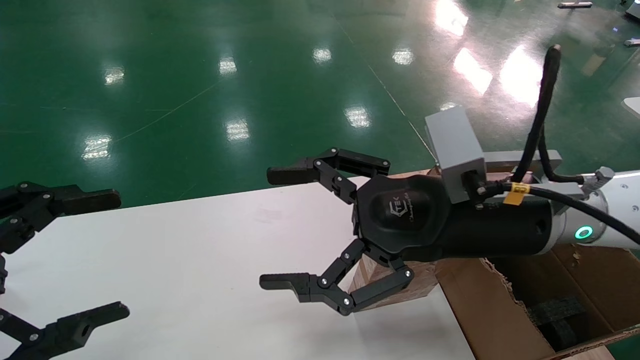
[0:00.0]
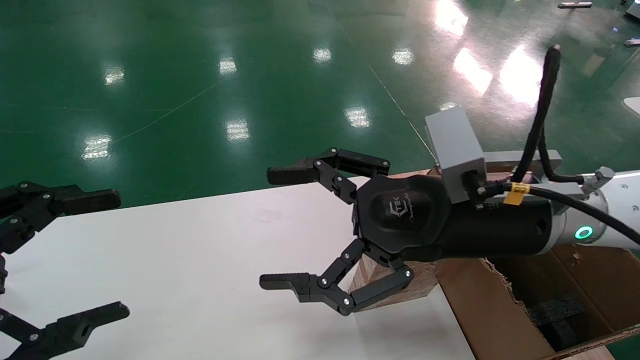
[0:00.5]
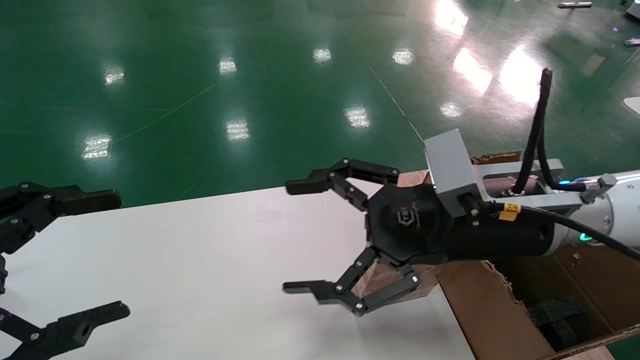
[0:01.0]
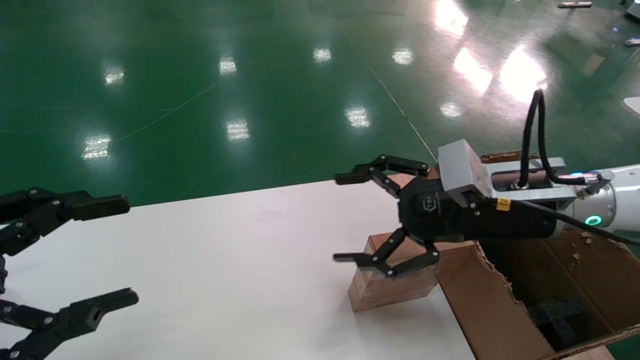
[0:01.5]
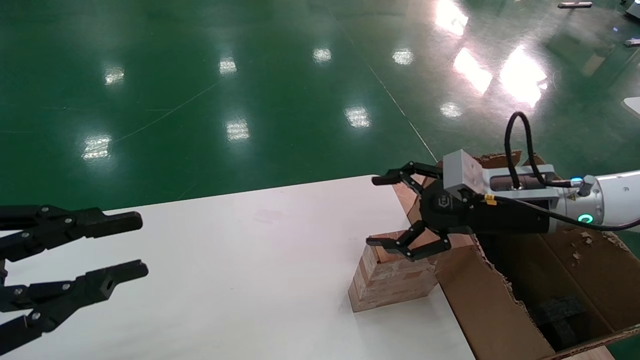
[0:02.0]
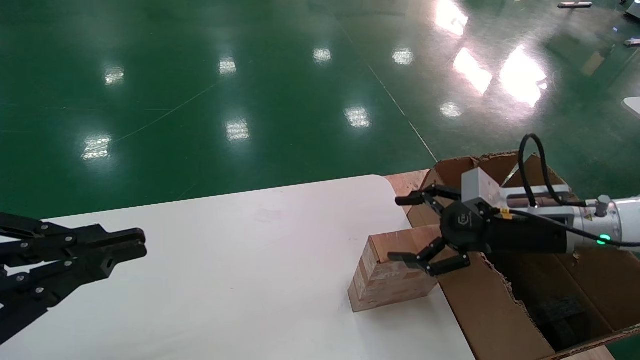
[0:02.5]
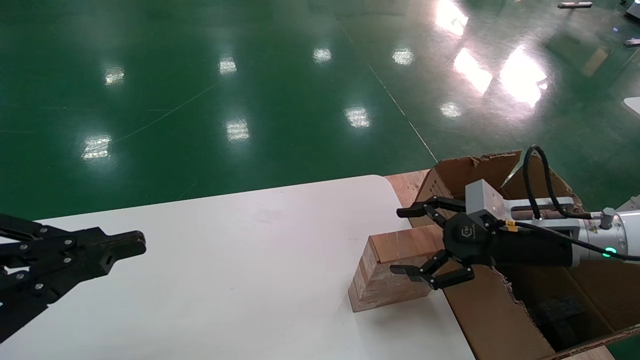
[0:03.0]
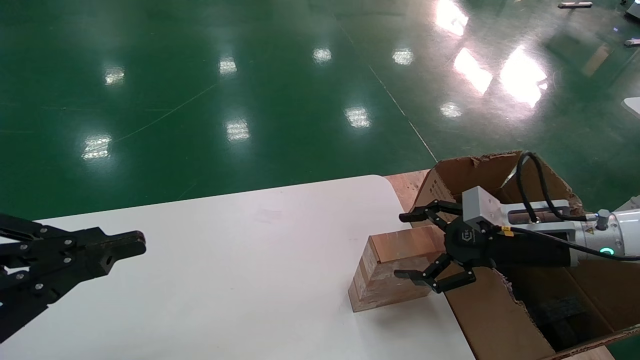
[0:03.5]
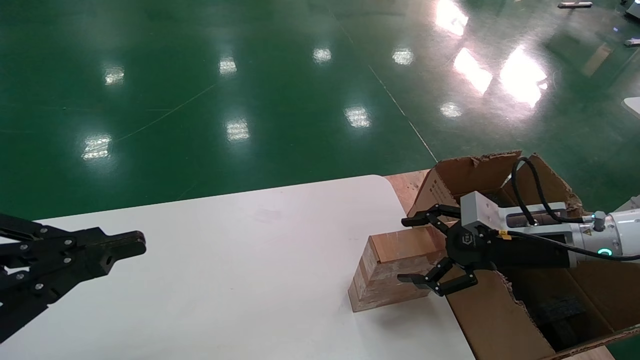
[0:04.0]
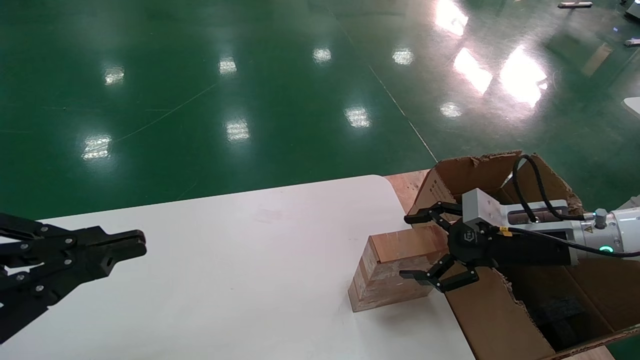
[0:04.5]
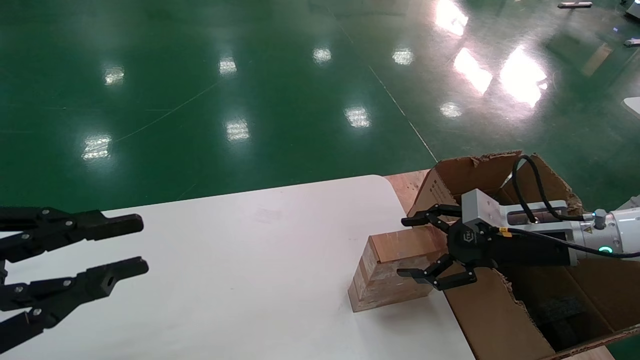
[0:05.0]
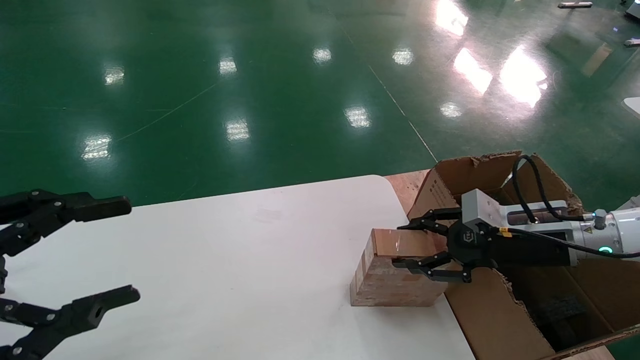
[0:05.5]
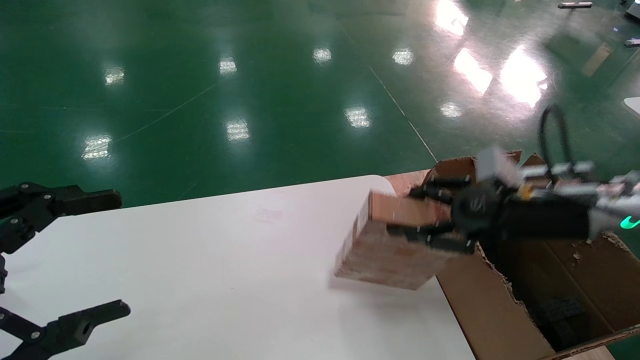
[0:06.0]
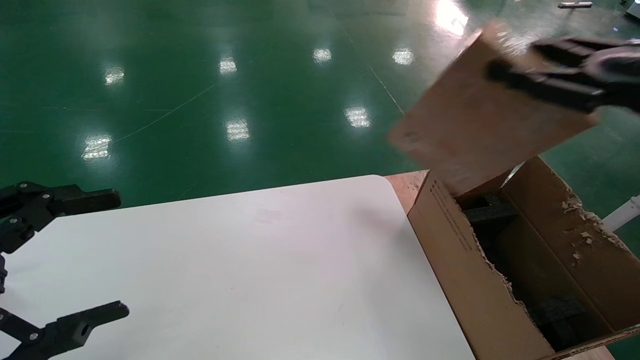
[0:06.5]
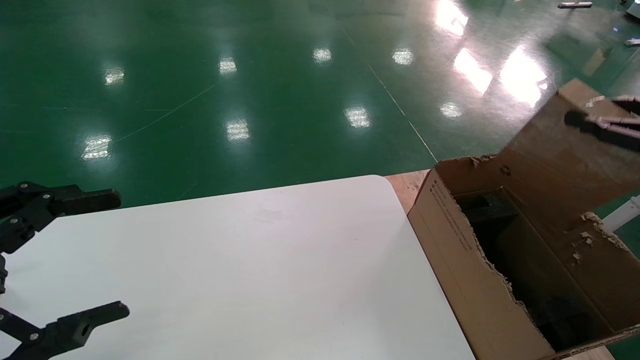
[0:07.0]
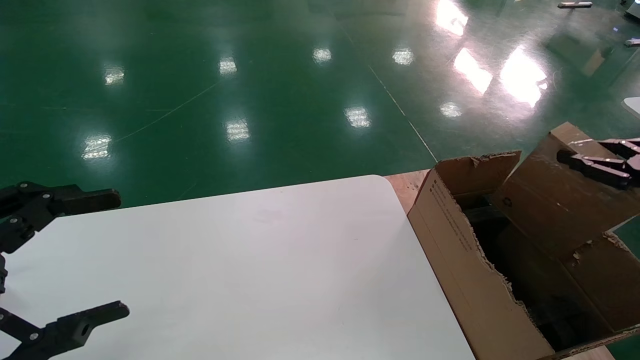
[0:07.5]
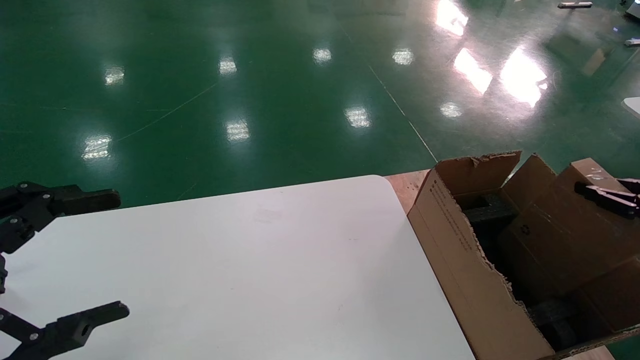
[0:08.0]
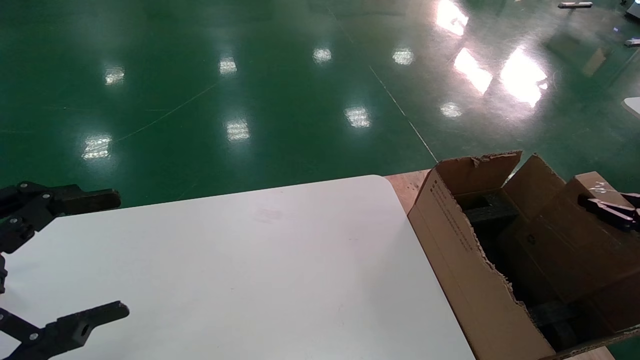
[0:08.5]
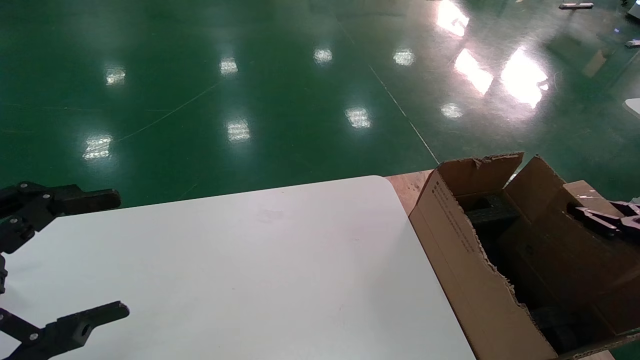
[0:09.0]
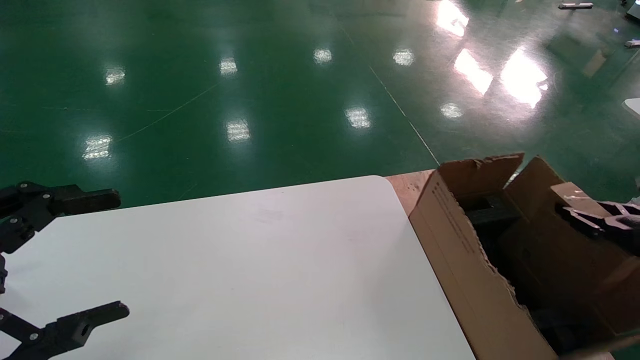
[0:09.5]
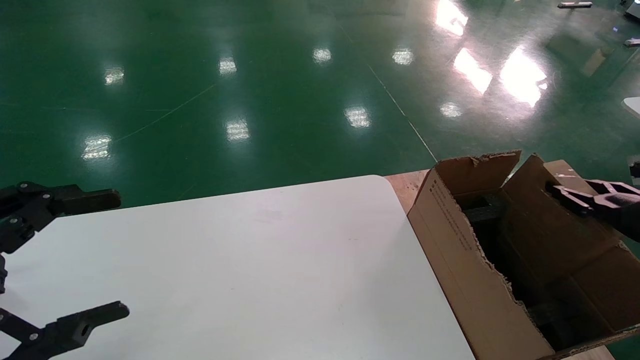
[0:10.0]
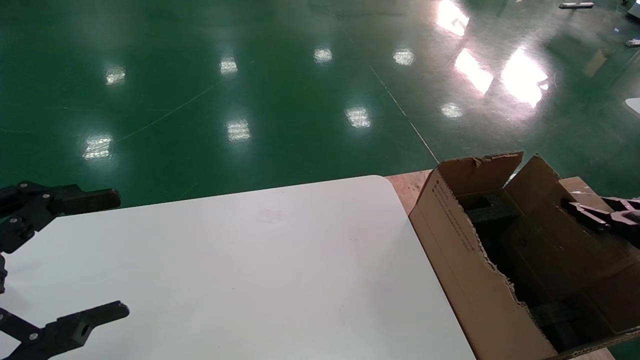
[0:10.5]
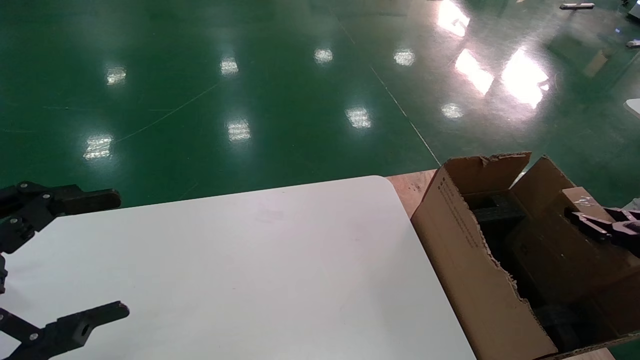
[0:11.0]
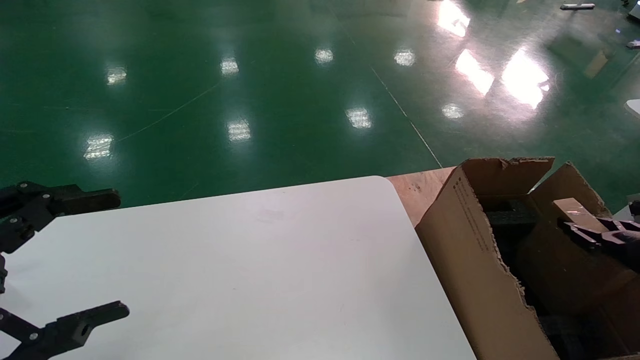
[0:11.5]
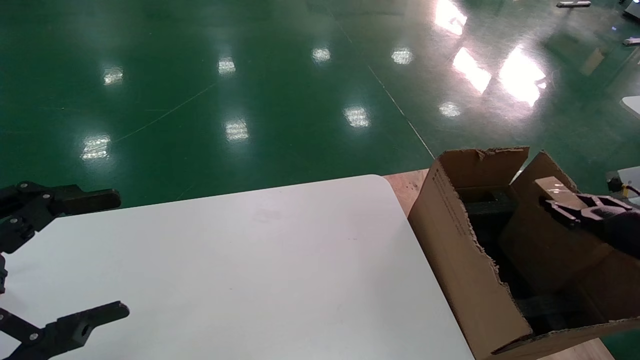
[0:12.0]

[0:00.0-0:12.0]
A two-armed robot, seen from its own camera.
Task of the whole recording: put the box on the table into the big box.
Step, 0:01.5 to 0:05.5: Pick up the mouse and the power cord paper box.
0:00.0 to 0:02.0: The right gripper travels to the right, forward and downward by about 15 cm. Meanwhile the left gripper closes its fingers.
0:02.0 to 0:04.0: The left gripper closes. Meanwhile the right gripper shifts roughly 5 cm downward.
0:04.0 to 0:06.0: The right gripper goes roughly 10 cm upward, and closes up. Meanwhile the left gripper opens.
0:06.0 to 0:08.0: The right gripper shifts roughly 20 cm to the right and backward.
0:08.0 to 0:10.0: The right gripper ends up roughly 5 cm from where it was.

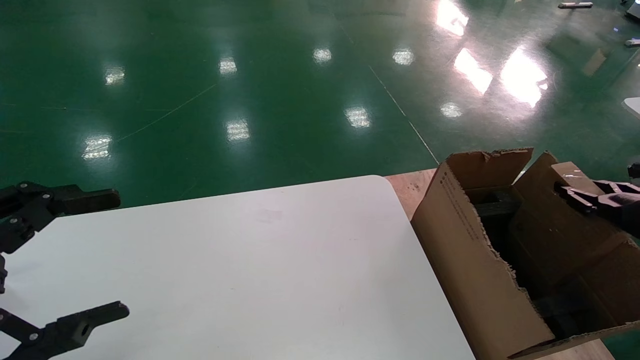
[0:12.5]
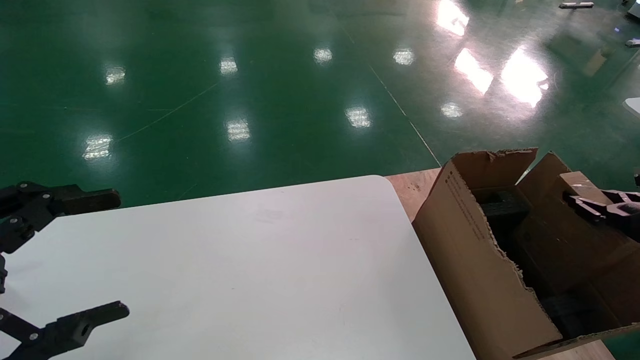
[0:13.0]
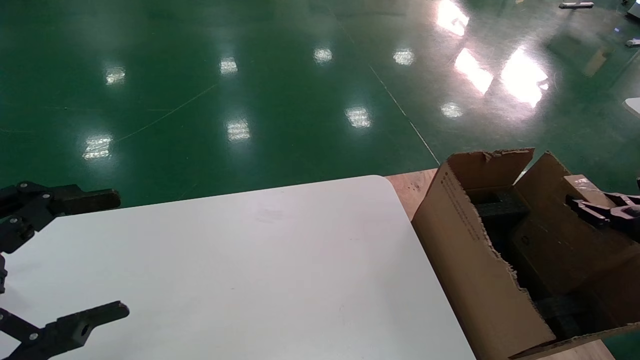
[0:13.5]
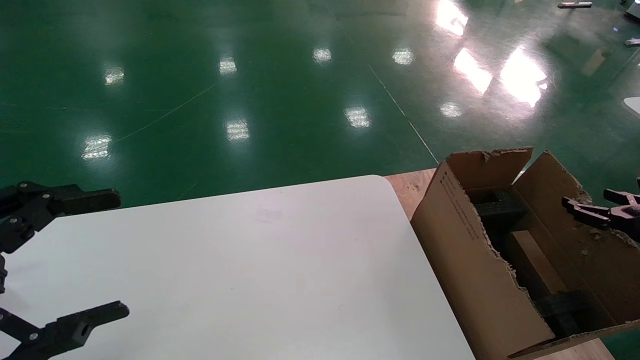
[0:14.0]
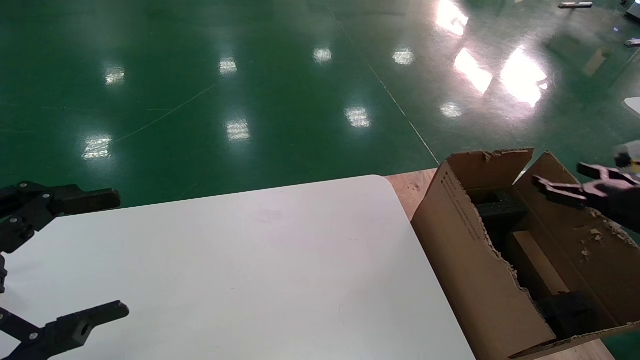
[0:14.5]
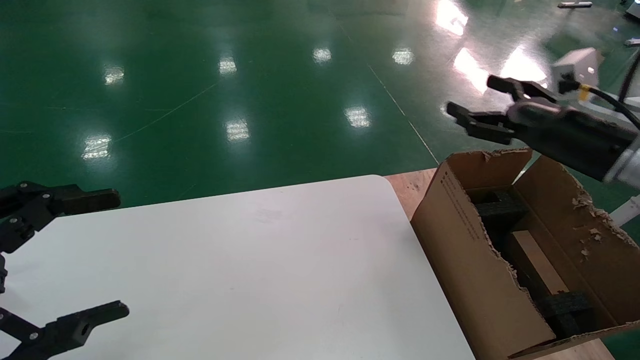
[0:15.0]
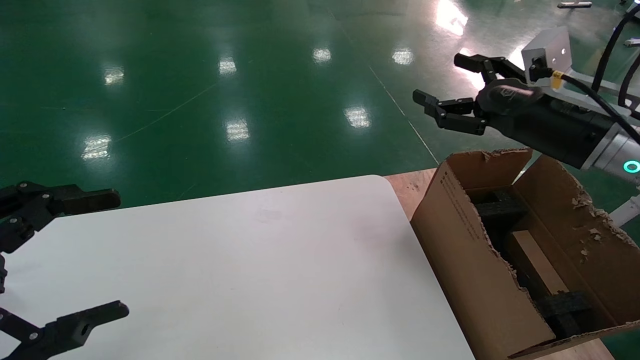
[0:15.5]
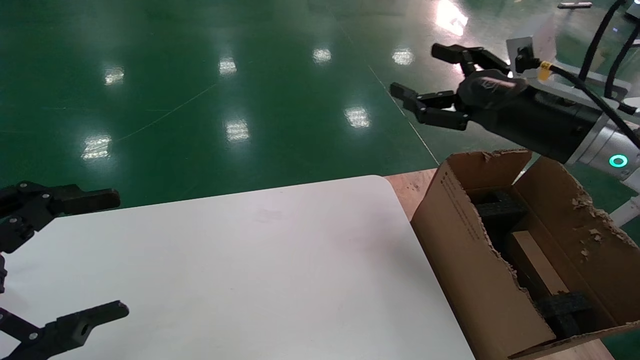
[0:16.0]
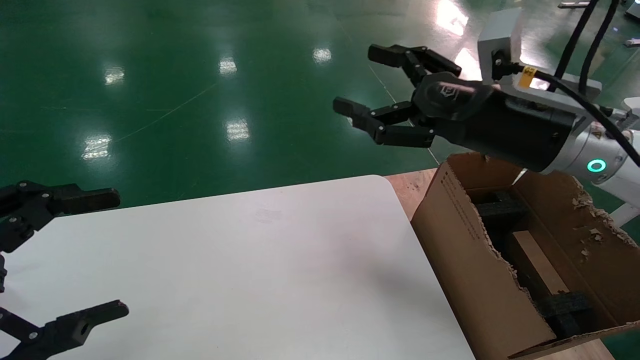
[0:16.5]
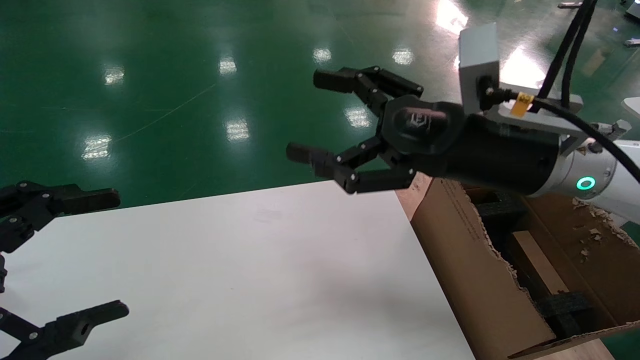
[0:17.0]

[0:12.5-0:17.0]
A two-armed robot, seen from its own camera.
Task of the whole recording: put the box on the table into the big box.
0:12.5 to 0:14.5: The right gripper opens up.
0:14.5 to 0:17.0: The right gripper shifts roughly 35 cm to the left and upward.
